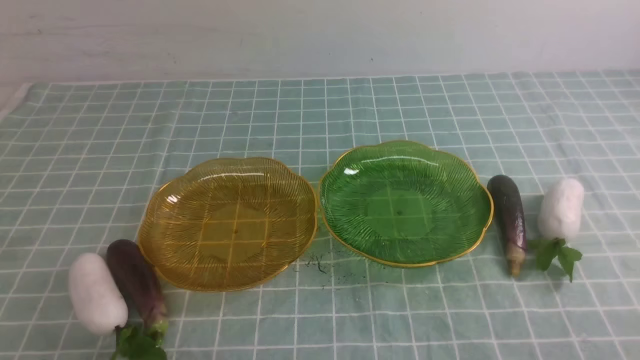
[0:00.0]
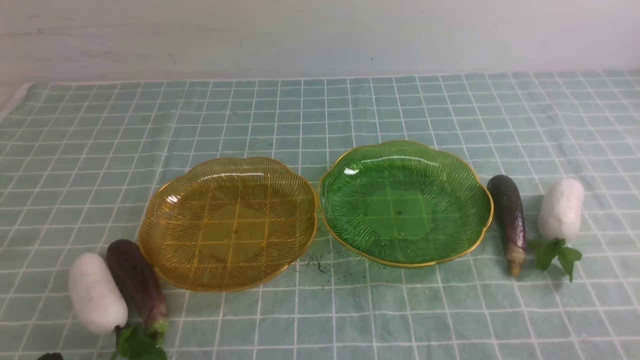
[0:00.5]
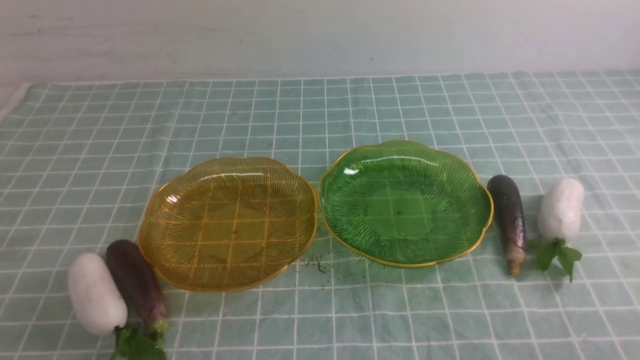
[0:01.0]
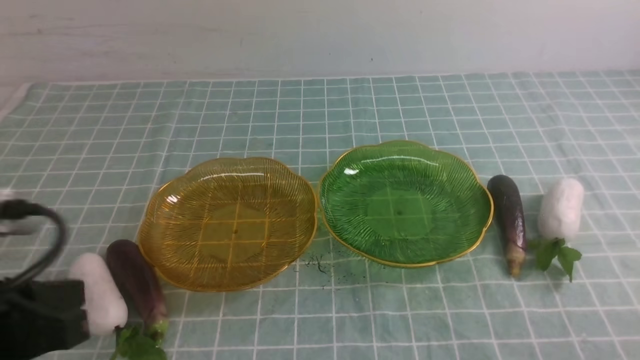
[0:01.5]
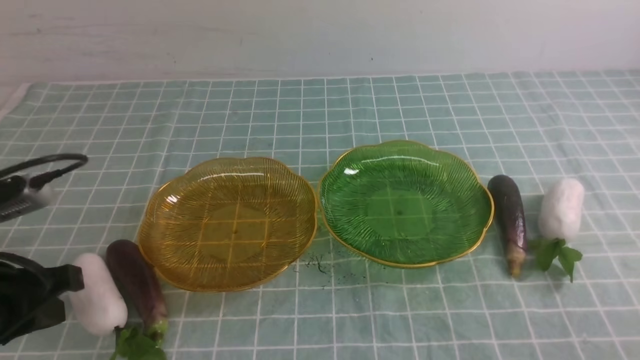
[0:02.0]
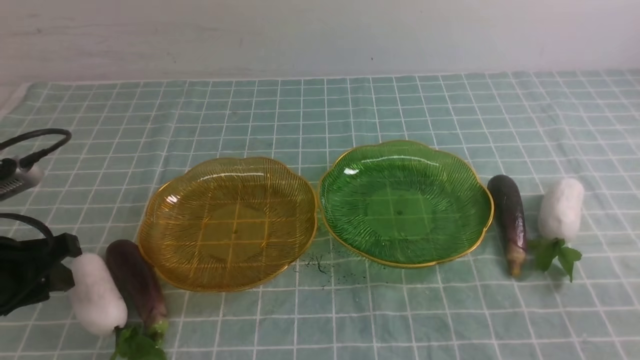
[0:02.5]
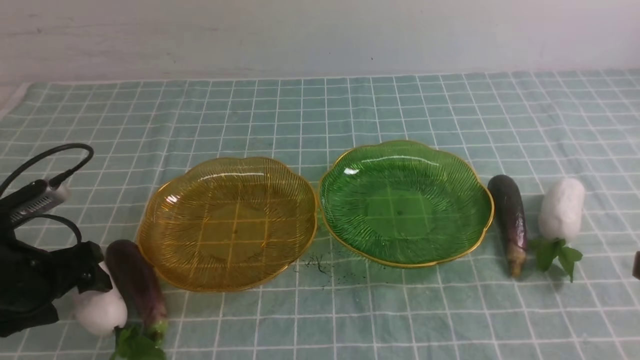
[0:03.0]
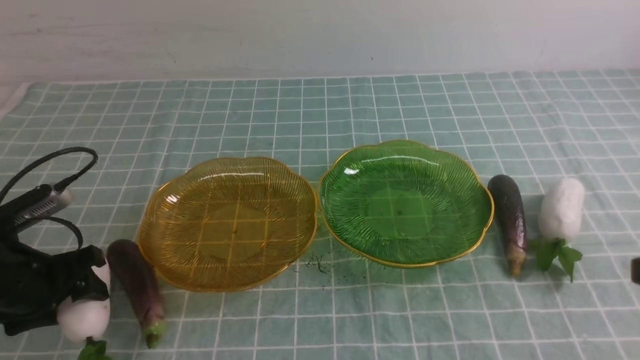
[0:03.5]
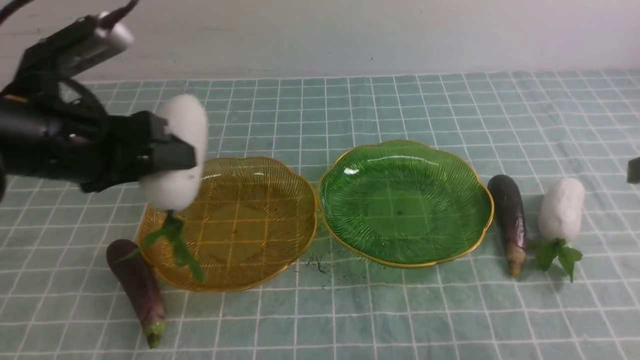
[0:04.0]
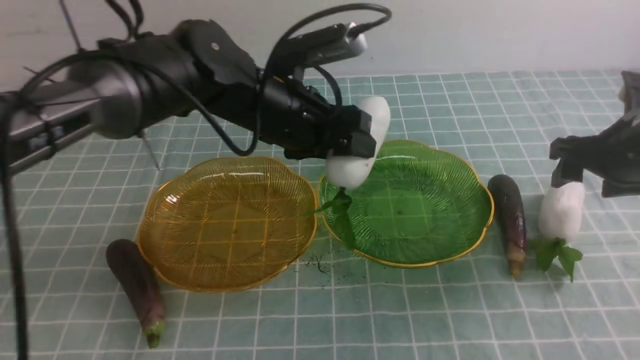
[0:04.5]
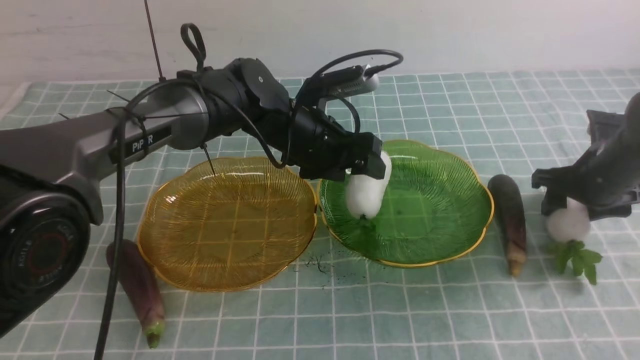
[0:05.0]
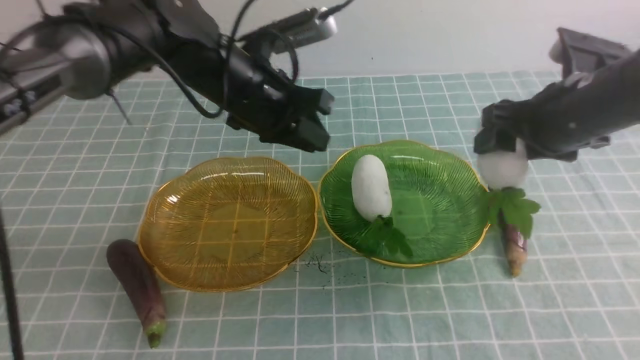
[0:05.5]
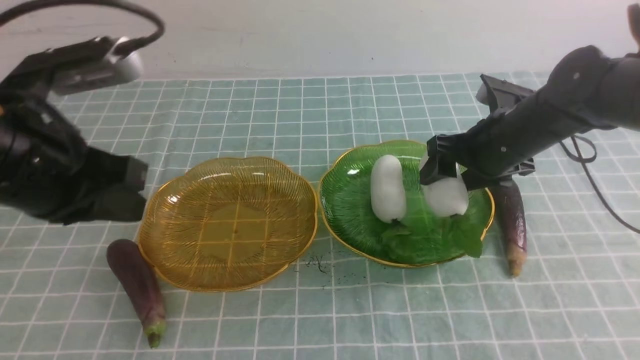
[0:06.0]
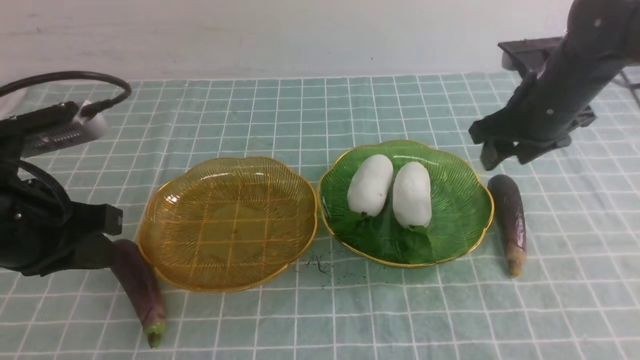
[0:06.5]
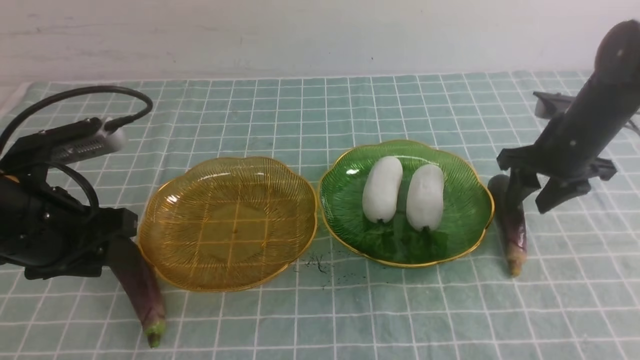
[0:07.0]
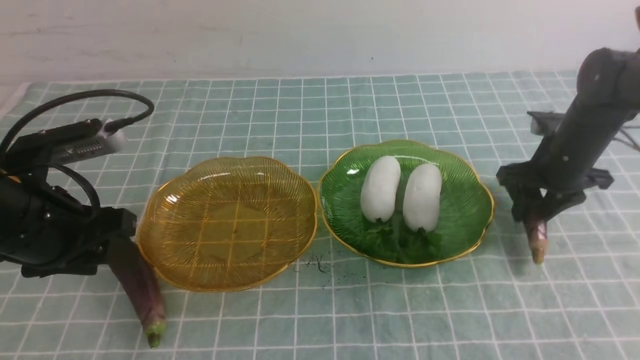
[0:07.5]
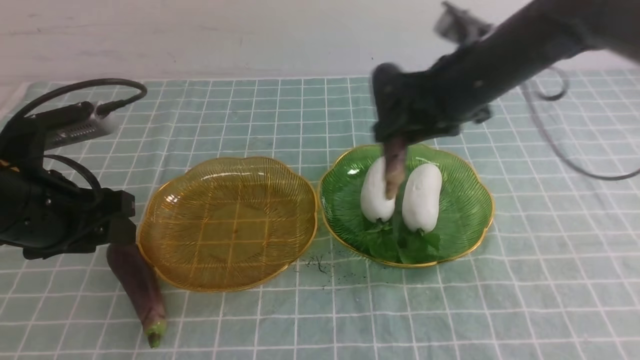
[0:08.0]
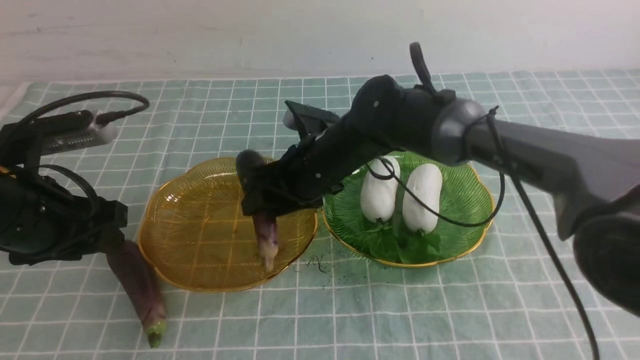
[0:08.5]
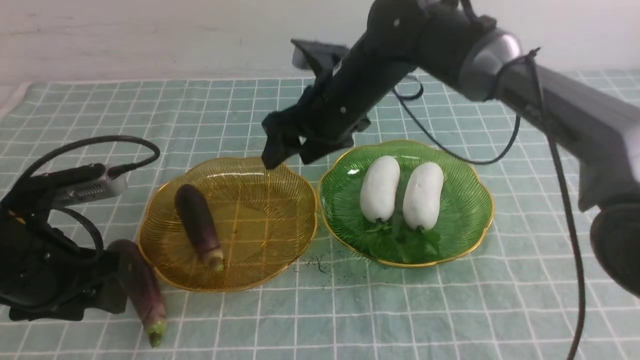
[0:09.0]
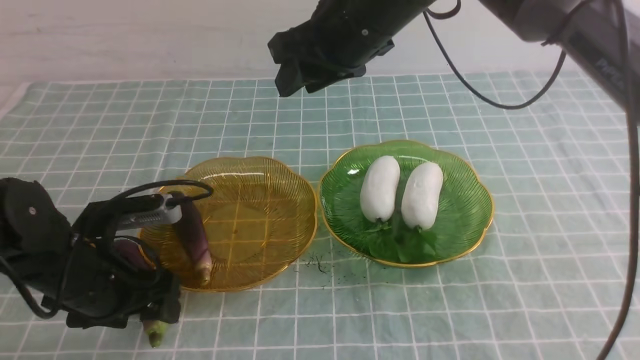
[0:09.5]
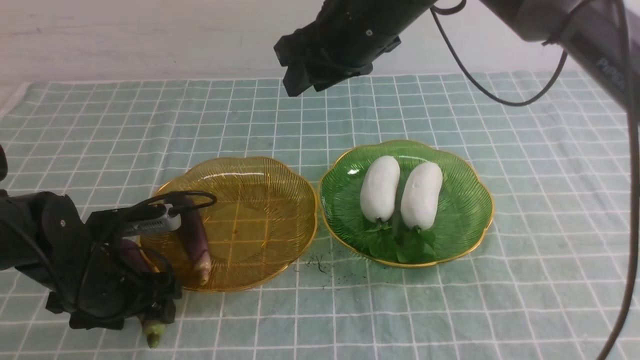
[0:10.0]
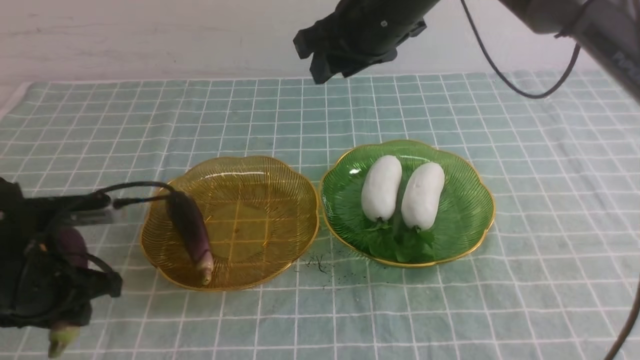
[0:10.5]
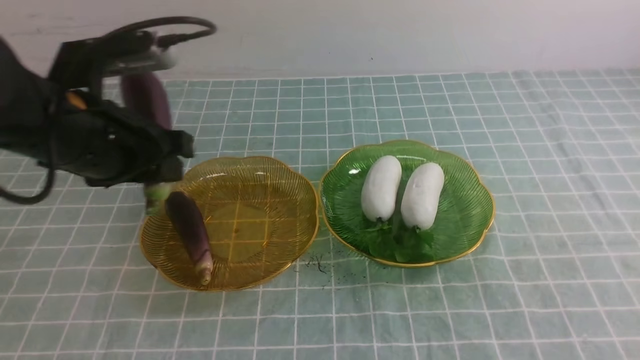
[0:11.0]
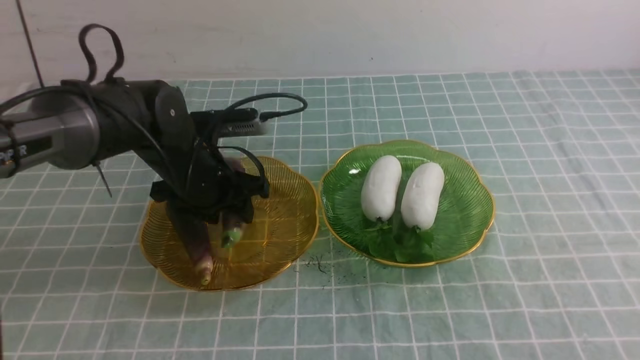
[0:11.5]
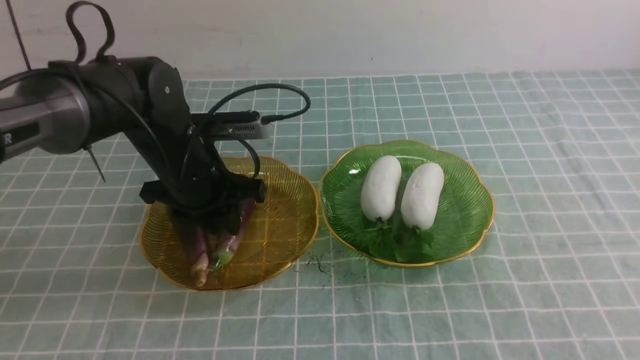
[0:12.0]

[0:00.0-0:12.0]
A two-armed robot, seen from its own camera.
Step, 0:00.0 to 0:04.5: use the left arm to grab a radish and put it into the right plate.
Step, 0:05.0 to 0:06.0: use the right arm to grab a radish and put it into the right plate.
Step, 0:06.5 to 0:08.5: use the right arm to grab an eggplant and put it into the left plate.
0:00.0 to 0:02.0: The left gripper heads forward and upward, covering approximately 15 cm.
0:02.0 to 0:04.0: The left gripper shifts about 15 cm forward, to the right and upward, and opens.
0:04.0 to 0:06.0: The left gripper travels to the right and back again, about 15 cm each way, and closes up, while the right gripper goes some 20 cm forward, to the left and downward, and opens up.
0:06.0 to 0:08.0: The left gripper heads downward, covering some 5 cm, and opens up. The right gripper moves to the left and upward, roughly 10 cm, and closes.
0:08.0 to 0:10.0: The left gripper moves downward, about 10 cm; the right gripper moves to the left and upward, approximately 10 cm.
0:10.0 to 0:12.0: The left gripper goes up and down, approximately 15 cm each way, reversing 2 times, and closes up. Meanwhile the right gripper travels backward and to the right by some 40 cm, and closes its fingers.

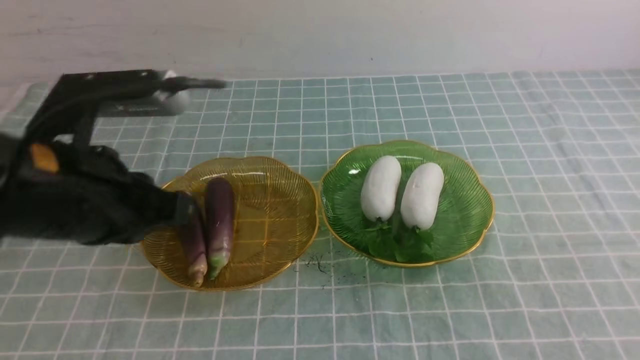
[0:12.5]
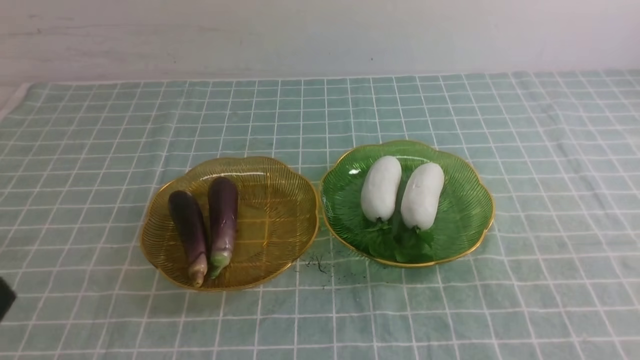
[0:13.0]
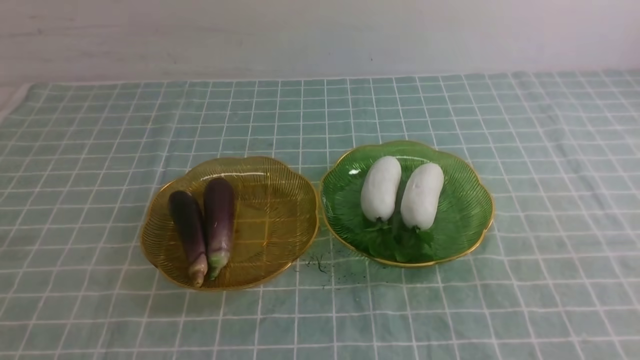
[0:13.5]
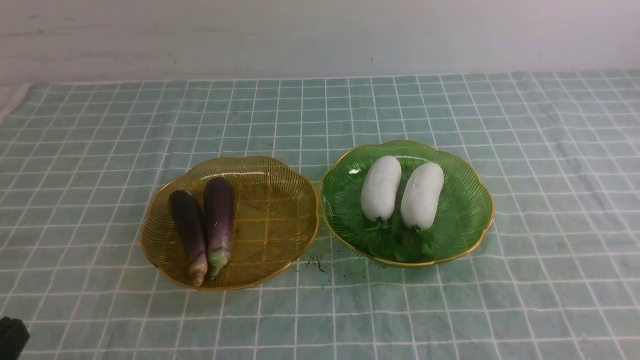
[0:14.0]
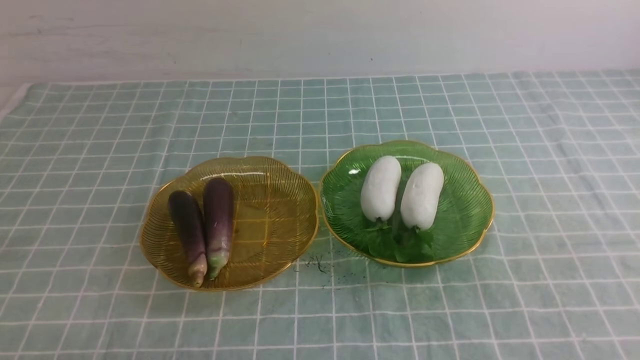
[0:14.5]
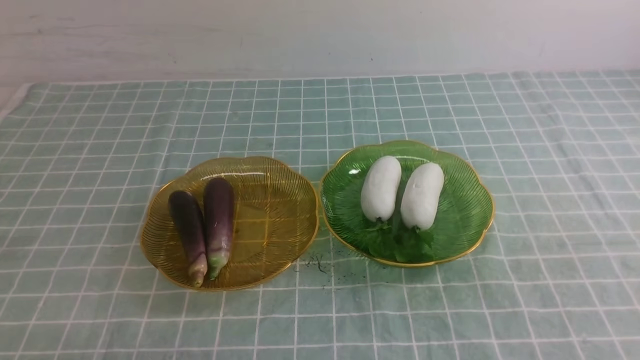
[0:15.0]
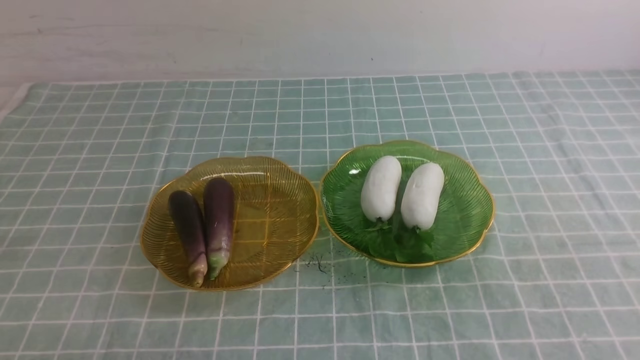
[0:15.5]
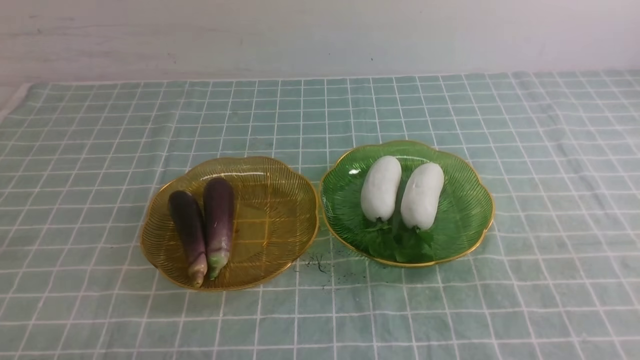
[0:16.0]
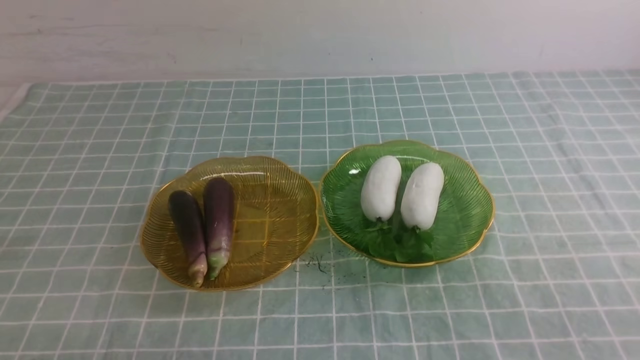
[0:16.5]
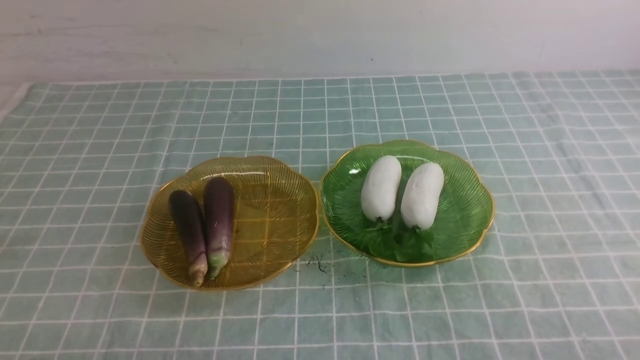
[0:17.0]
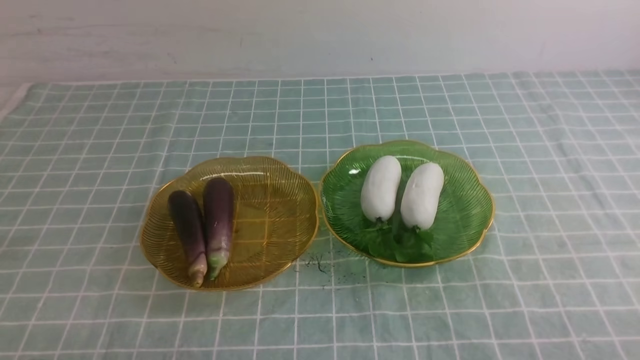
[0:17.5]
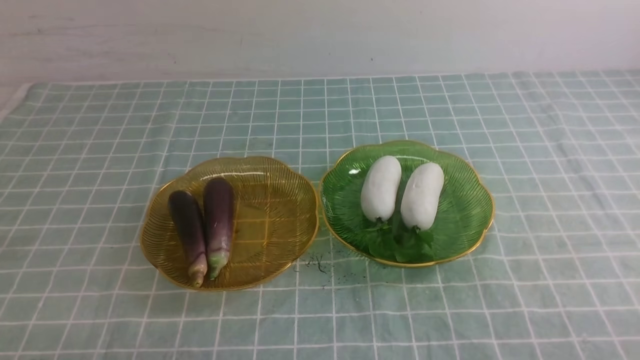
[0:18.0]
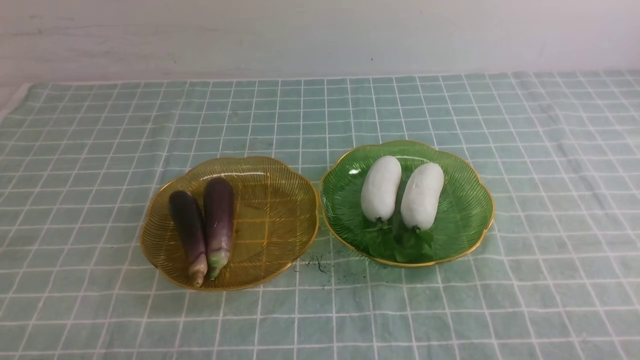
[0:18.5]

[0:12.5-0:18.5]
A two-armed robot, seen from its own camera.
0:12.5 to 0:14.5: The left gripper shifts about 20 cm downward and backward.

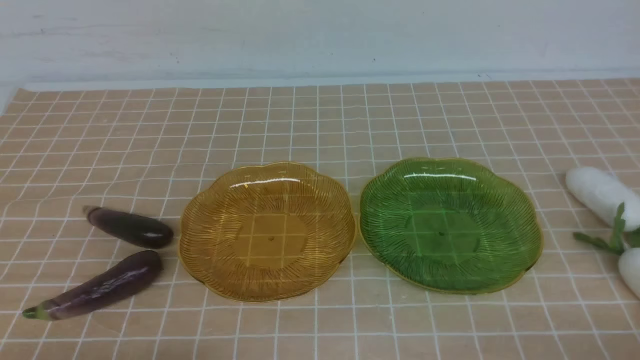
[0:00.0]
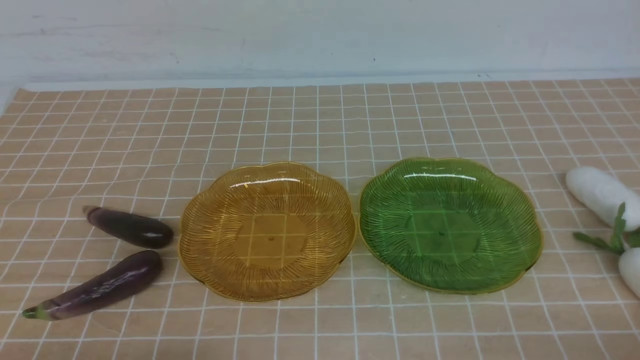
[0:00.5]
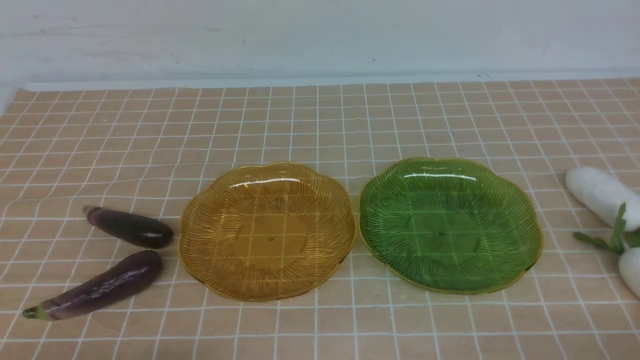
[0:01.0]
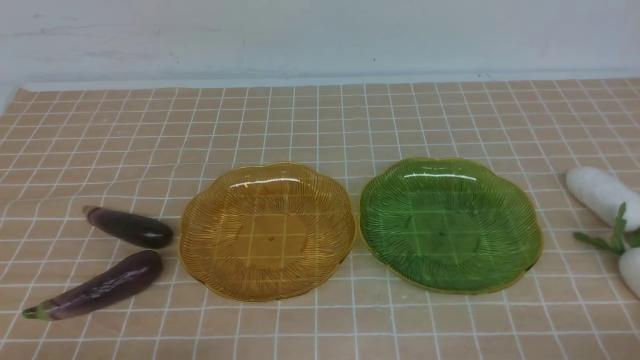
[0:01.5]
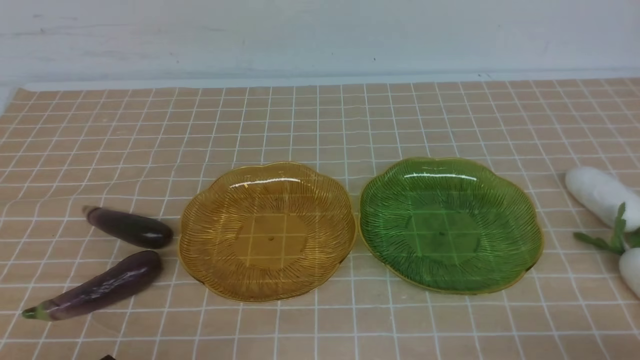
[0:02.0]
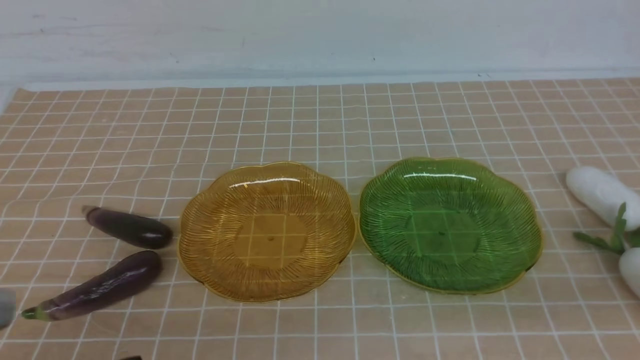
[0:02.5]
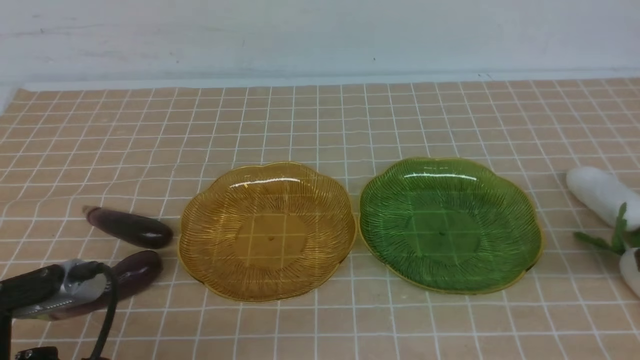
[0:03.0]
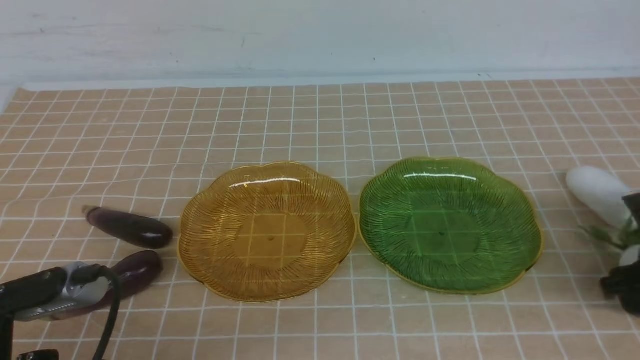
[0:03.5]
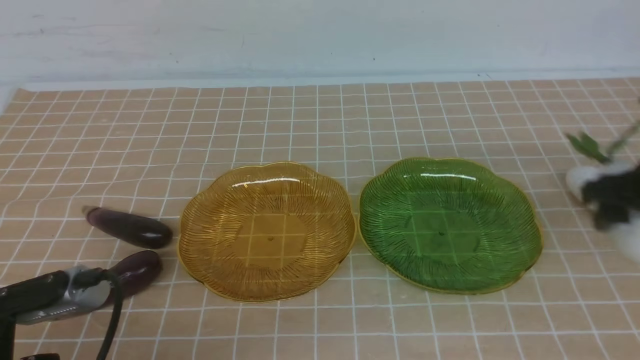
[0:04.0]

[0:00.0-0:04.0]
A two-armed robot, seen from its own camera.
0:02.0 to 0:04.0: The left gripper moves forward, about 5 cm, and opens its fingers. The right gripper travels forward by some 25 cm, and opens its fingers.
